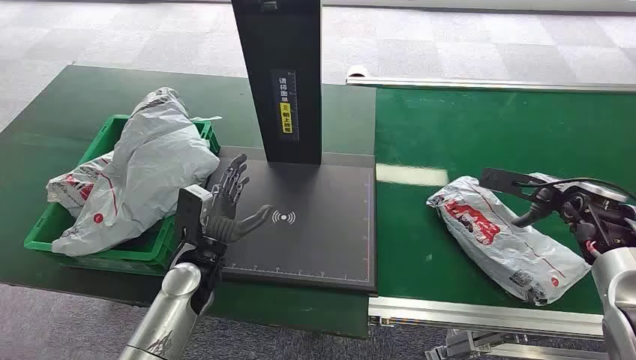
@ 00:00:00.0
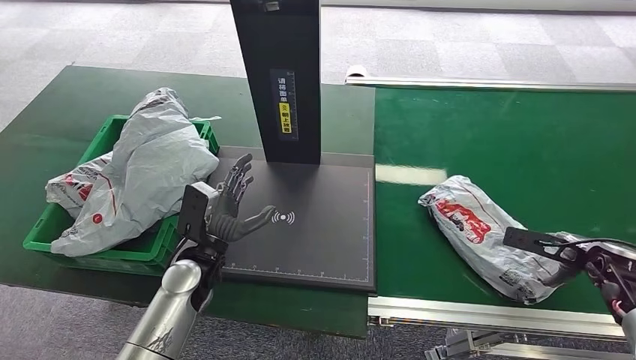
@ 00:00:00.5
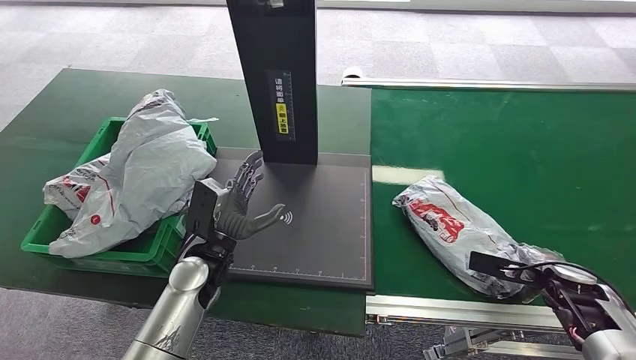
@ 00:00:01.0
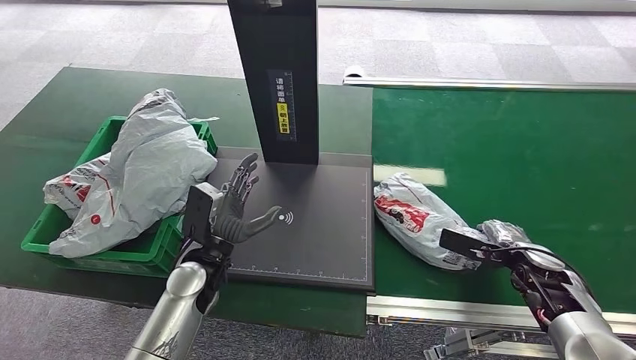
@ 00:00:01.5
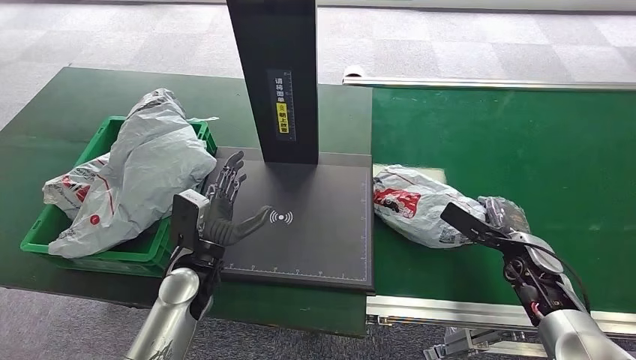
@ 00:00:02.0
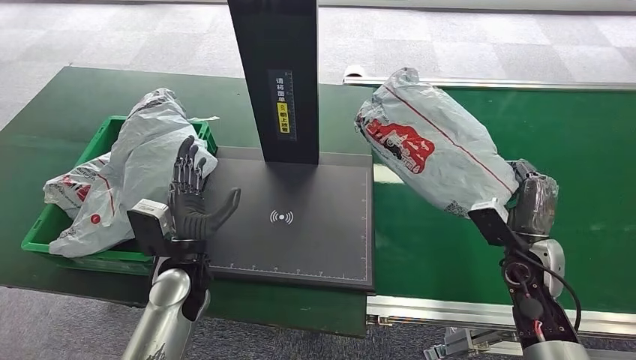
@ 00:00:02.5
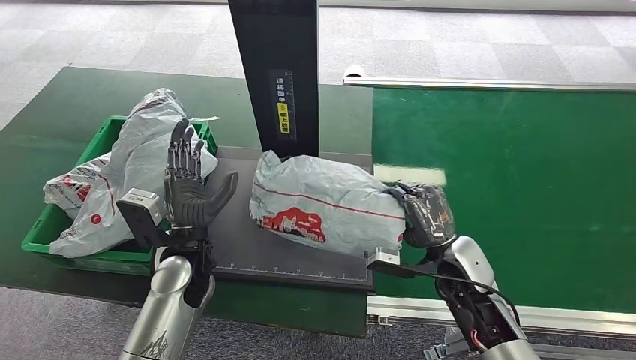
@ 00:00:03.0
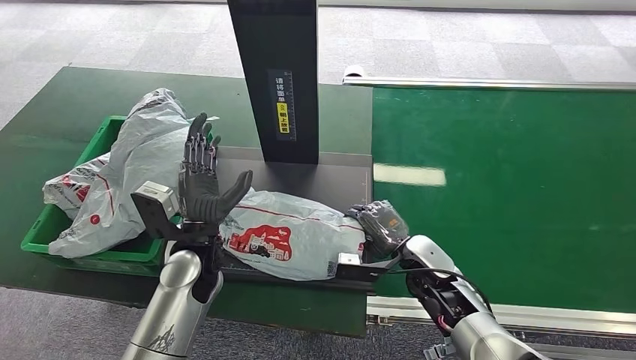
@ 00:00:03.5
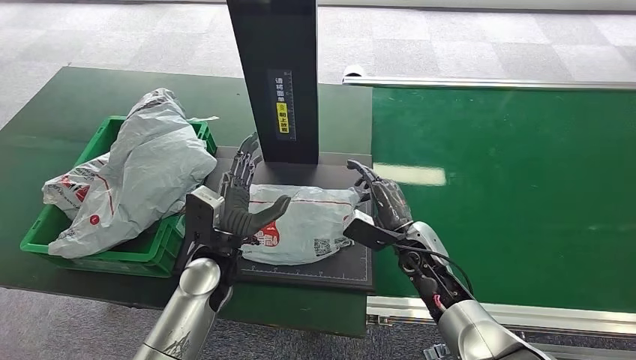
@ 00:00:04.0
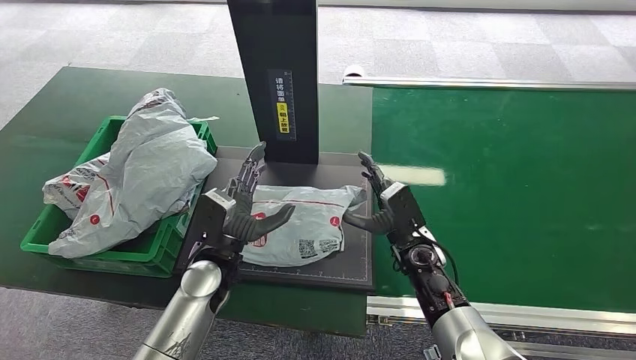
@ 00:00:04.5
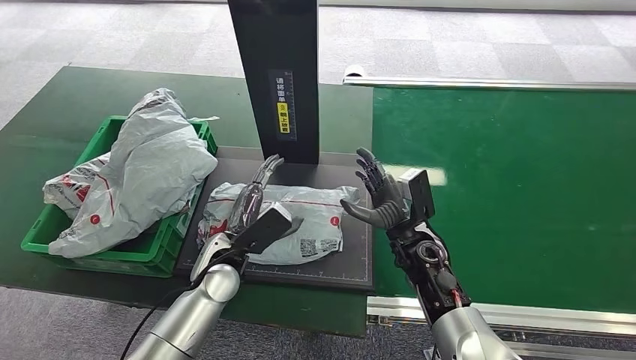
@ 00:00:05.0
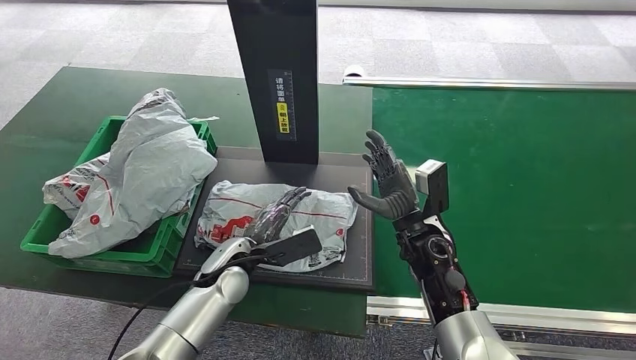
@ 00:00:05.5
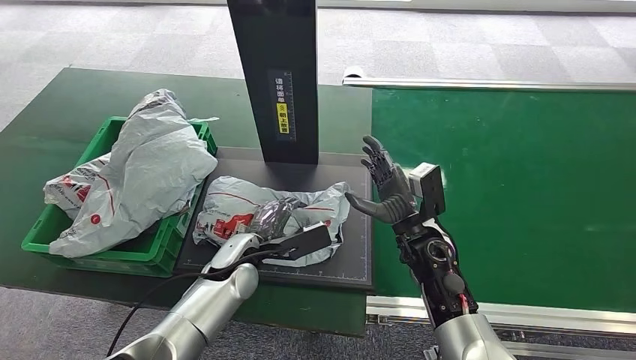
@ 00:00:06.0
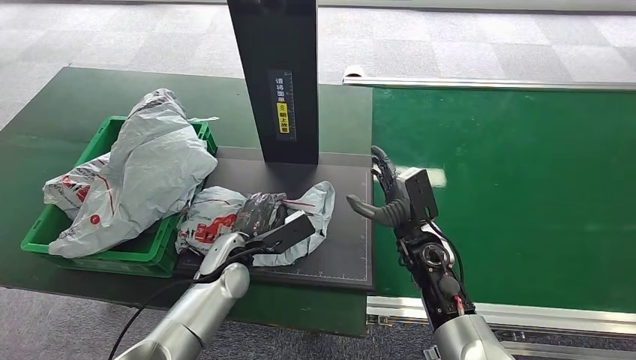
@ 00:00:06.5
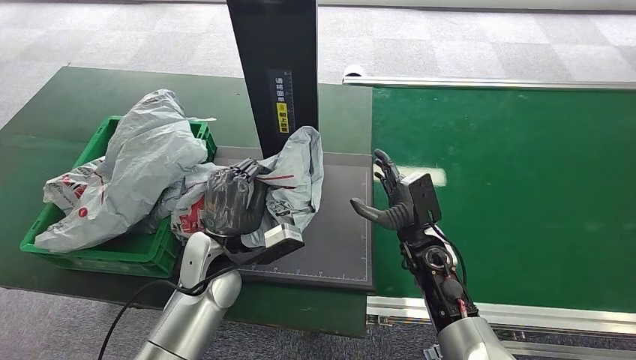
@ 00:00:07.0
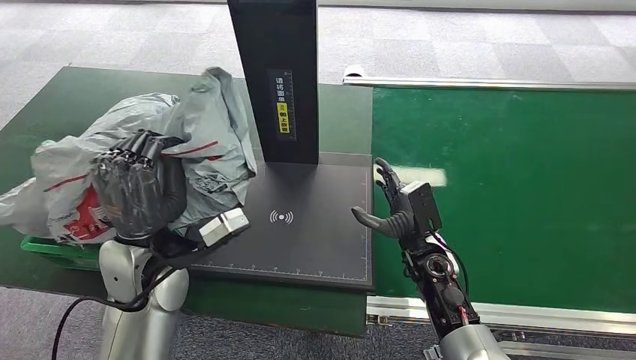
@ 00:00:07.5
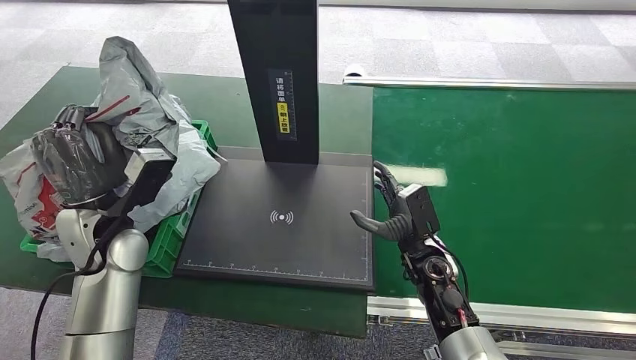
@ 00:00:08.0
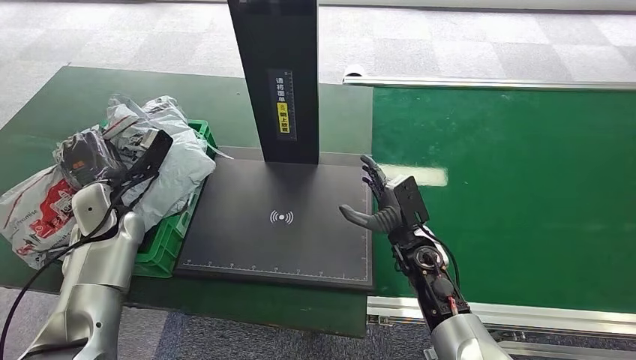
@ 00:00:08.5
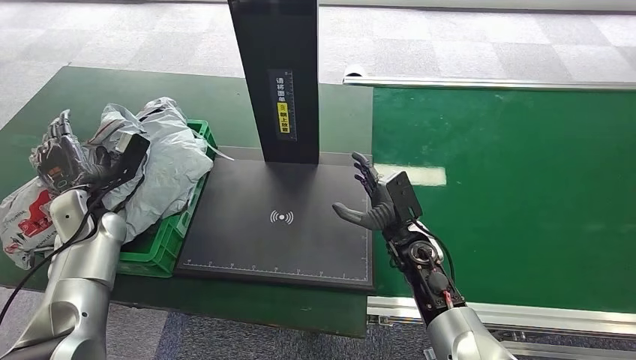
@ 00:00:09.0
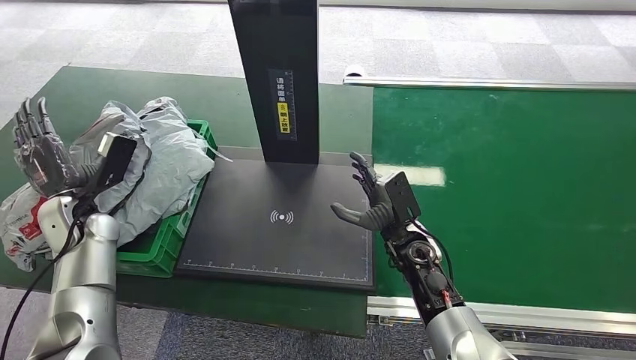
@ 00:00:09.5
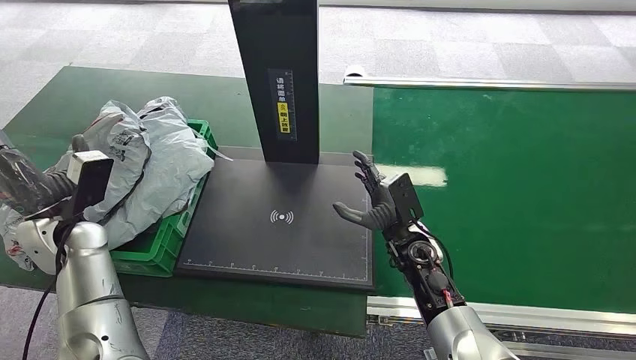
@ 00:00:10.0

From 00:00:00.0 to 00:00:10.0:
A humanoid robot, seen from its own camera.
Task of the whole recording: Weigh the package on the weighing device and place it in the left basket.
Step, from 00:00:00.0 to 00:00:02.5: Pick up the package from the conveyor belt.
Step, from 00:00:03.0 to 00:00:05.0: Place the package onto the inbound machine.
Step, from 00:00:05.5 to 00:00:07.5: Pick up the package from the inbound machine.
Step, from 00:00:08.0 to 00:00:10.0: Place the package into the parcel locker.
From 00:00:02.0 to 00:00:04.0: The right hand is displaced to the left by roughly 20 cm.
From 00:00:04.0 to 00:00:06.0: The left hand changes place by roughly 5 cm.
From 00:00:08.0 to 00:00:10.0: The left hand moves to the left, about 10 cm.

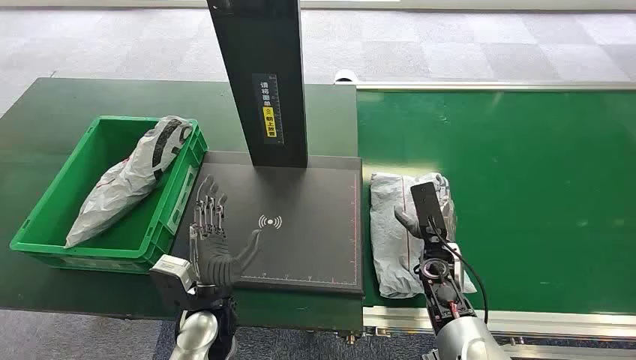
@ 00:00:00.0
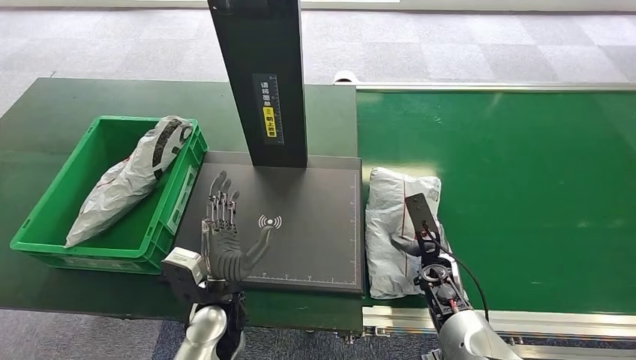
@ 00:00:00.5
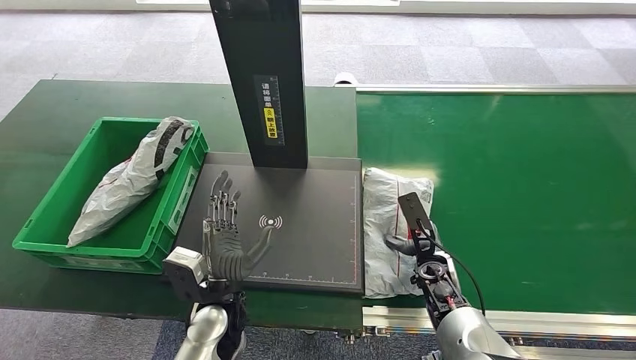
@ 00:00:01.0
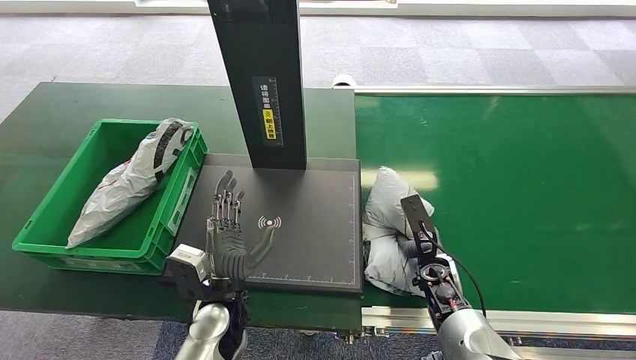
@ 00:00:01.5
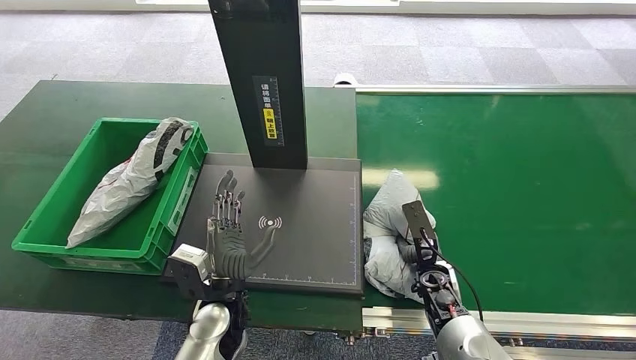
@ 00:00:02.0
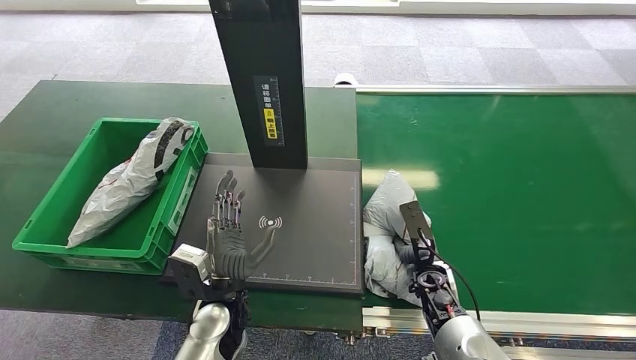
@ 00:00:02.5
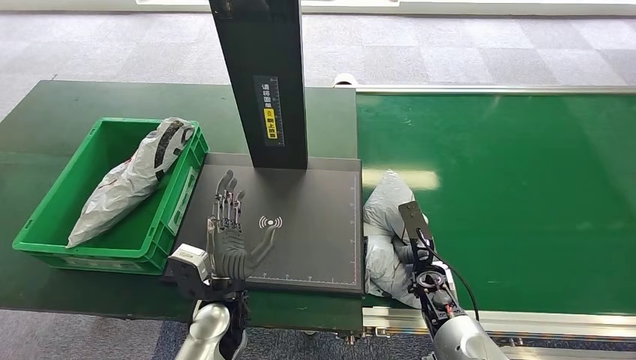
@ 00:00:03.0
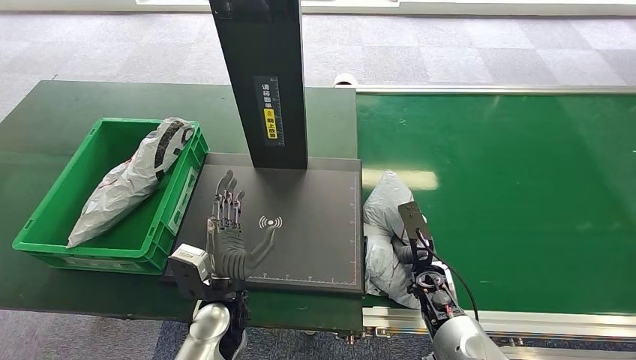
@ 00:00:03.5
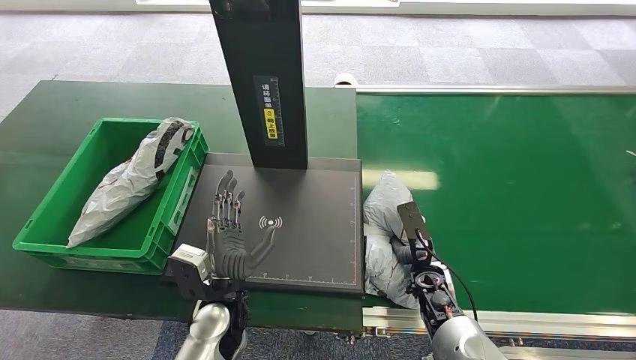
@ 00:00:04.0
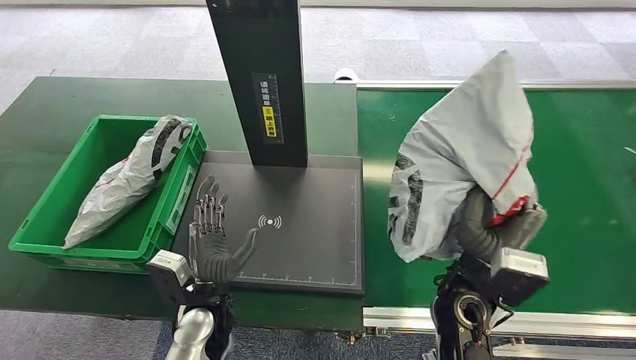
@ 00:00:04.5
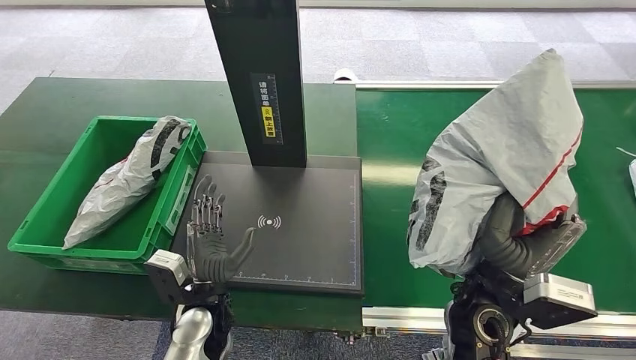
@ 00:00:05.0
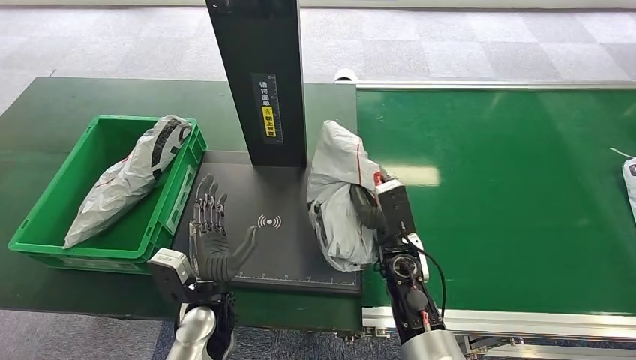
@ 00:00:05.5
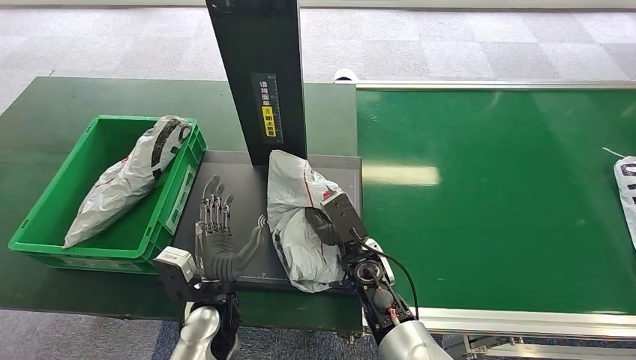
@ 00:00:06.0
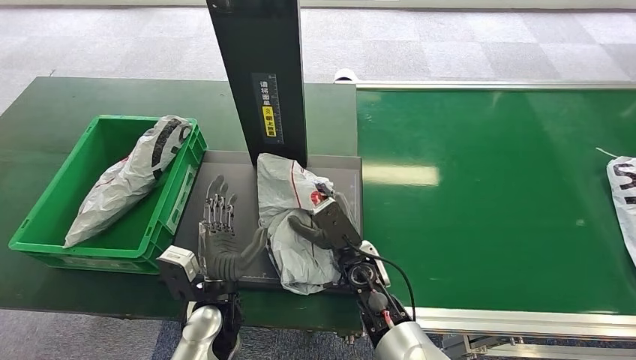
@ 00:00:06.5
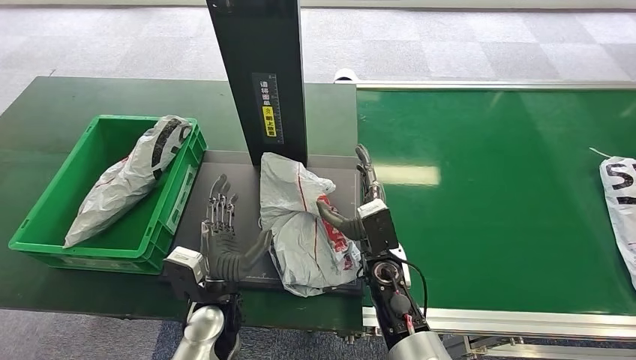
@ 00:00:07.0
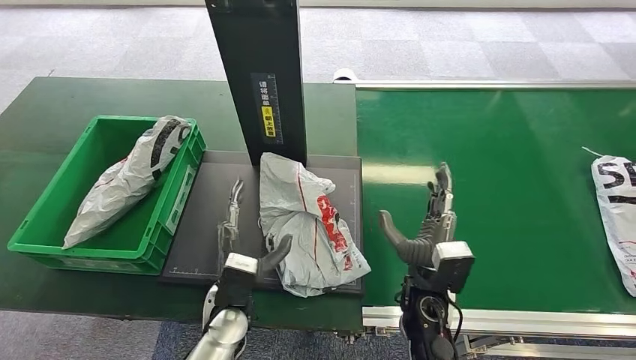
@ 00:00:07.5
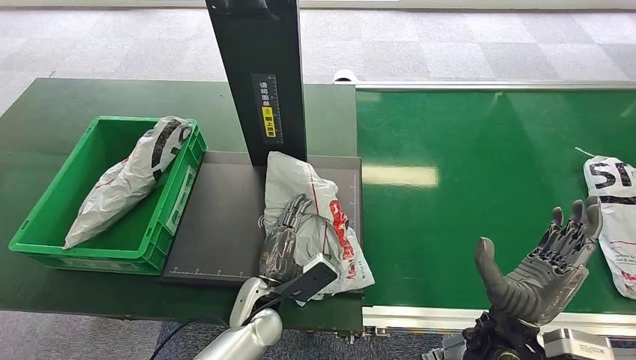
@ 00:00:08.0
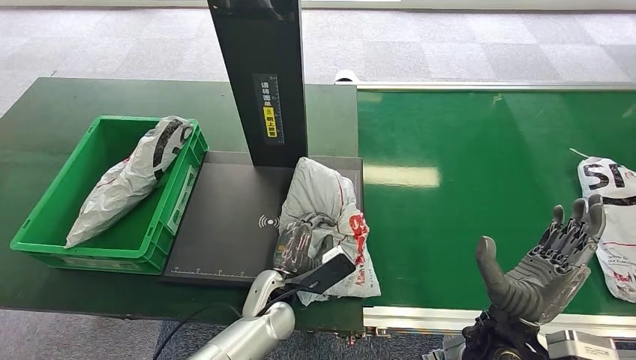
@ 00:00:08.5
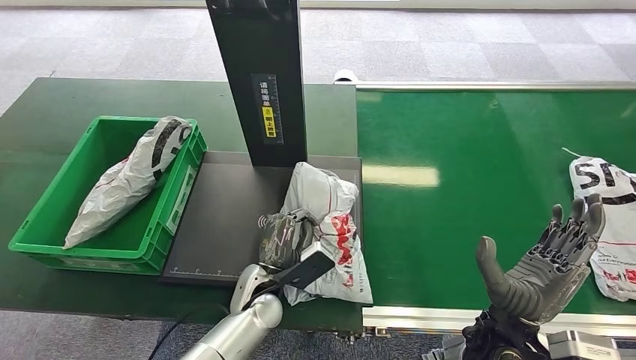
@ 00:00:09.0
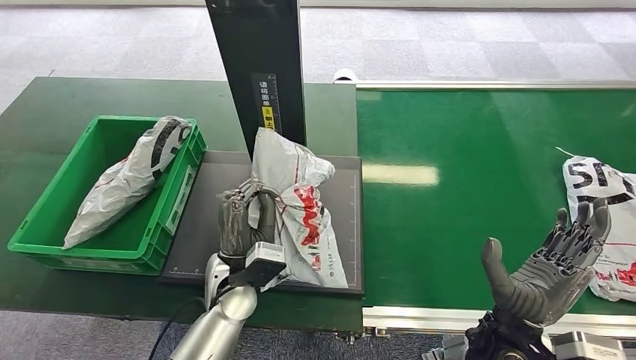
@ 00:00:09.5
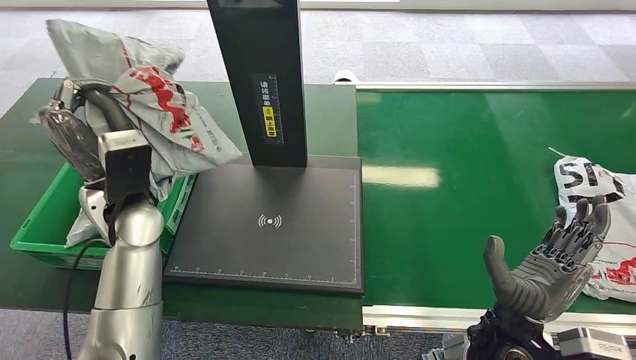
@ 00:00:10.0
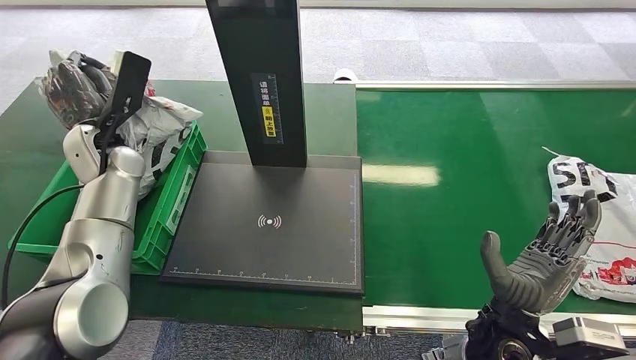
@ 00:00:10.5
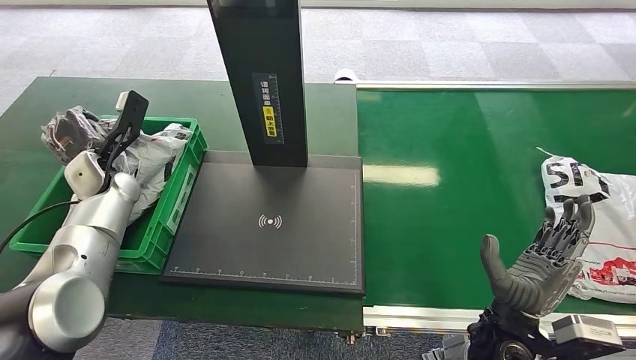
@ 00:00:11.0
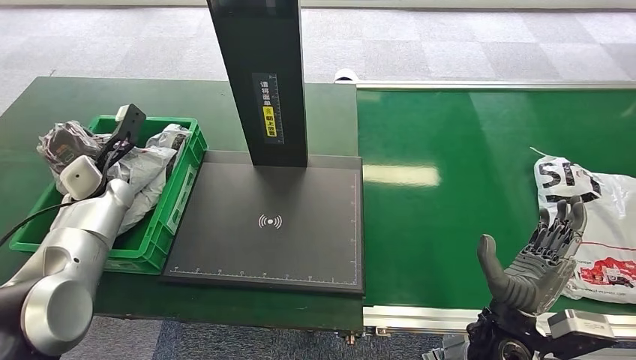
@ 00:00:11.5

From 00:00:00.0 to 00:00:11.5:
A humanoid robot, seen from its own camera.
Task of the whole recording: Weigh the package on the weighing device and place it in the left basket.
Step, from 00:00:00.0 to 00:00:04.5: Pick up the package from the conveyor belt.
Step, from 00:00:05.0 to 00:00:07.5: Place the package onto the inbound machine.
Step, from 00:00:08.0 to 00:00:10.0: Pick up the package from the inbound machine.
Step, from 00:00:10.5 to 00:00:11.5: Place the package into the parcel locker.
From 00:00:02.0 to 00:00:04.0: Neither hand changes place.
From 00:00:06.0 to 00:00:07.5: The right hand heads to the right, covering about 10 cm.
From 00:00:07.5 to 00:00:09.5: The left hand changes place by approximately 5 cm, while the right hand goes approximately 10 cm to the right and backward.
